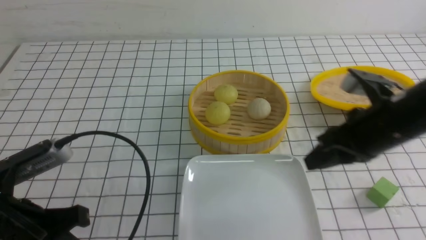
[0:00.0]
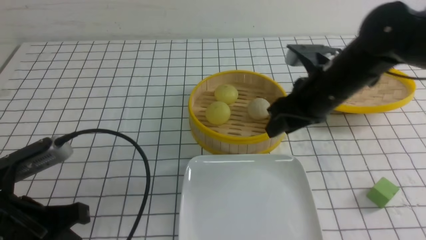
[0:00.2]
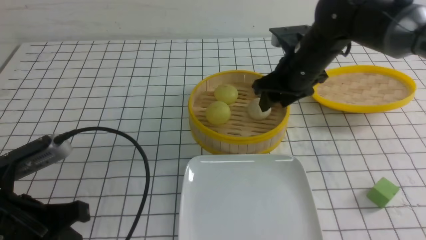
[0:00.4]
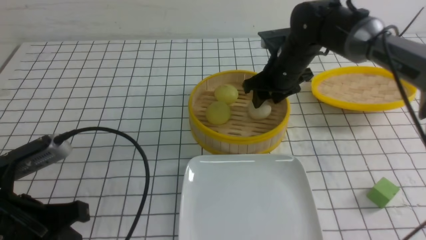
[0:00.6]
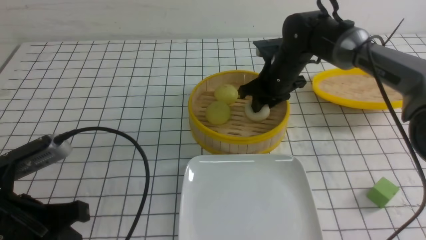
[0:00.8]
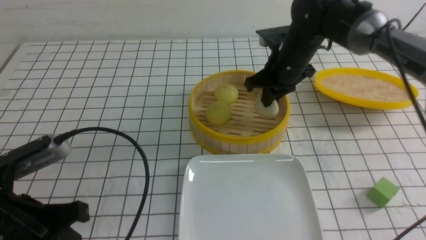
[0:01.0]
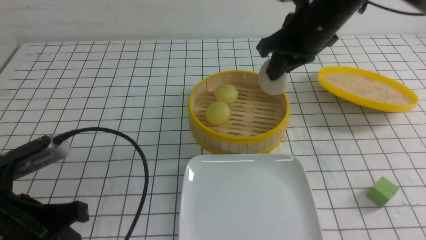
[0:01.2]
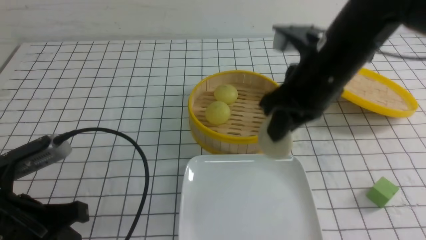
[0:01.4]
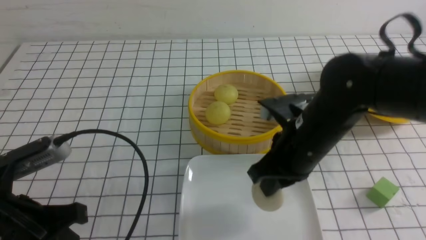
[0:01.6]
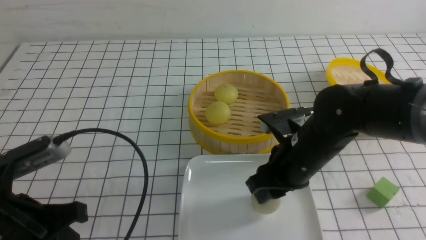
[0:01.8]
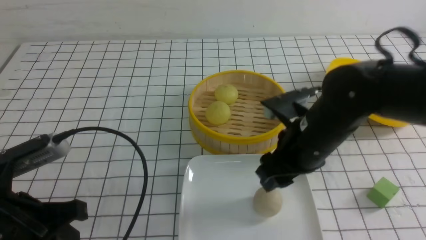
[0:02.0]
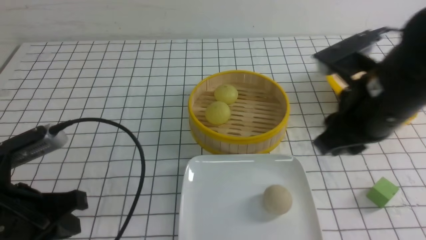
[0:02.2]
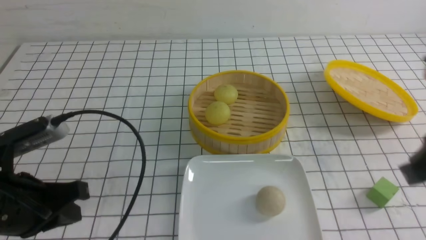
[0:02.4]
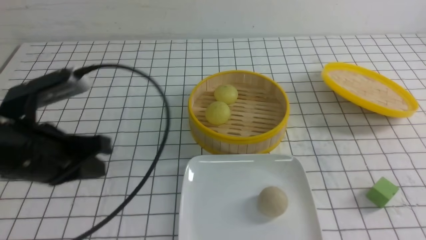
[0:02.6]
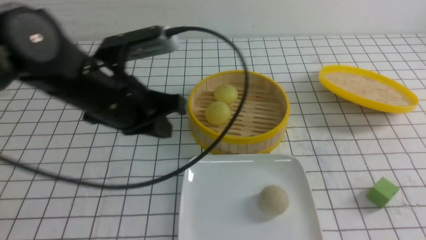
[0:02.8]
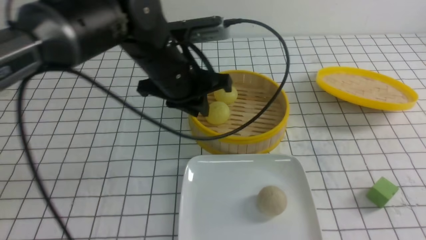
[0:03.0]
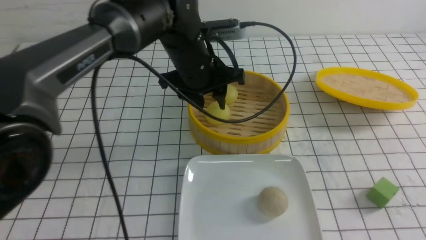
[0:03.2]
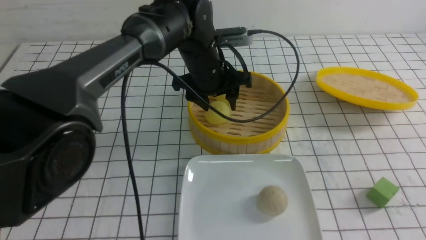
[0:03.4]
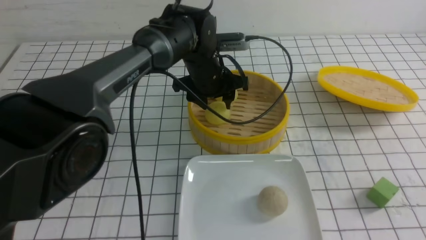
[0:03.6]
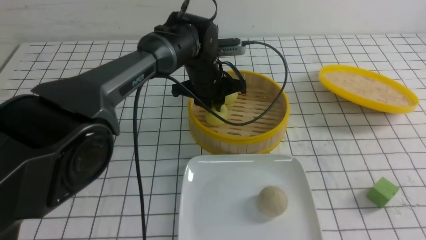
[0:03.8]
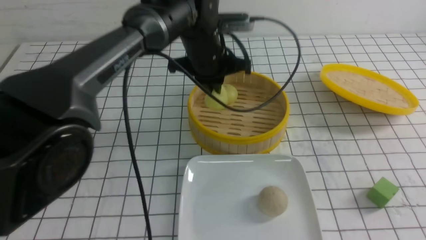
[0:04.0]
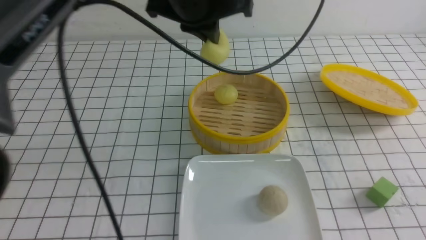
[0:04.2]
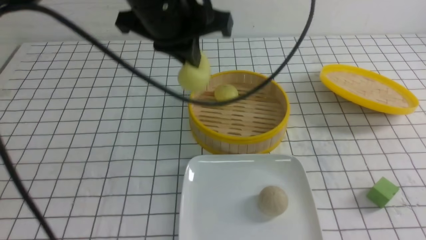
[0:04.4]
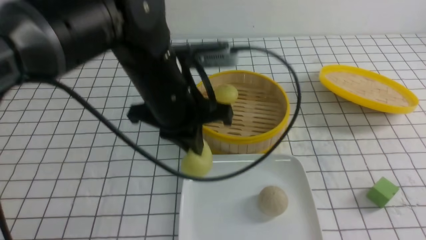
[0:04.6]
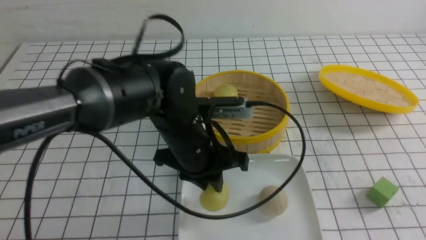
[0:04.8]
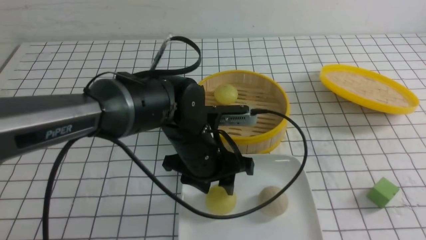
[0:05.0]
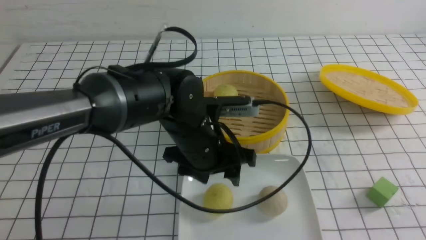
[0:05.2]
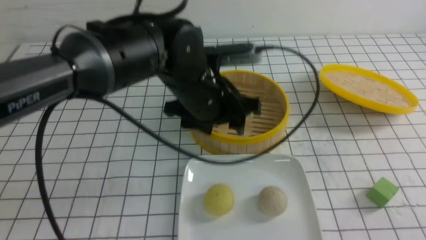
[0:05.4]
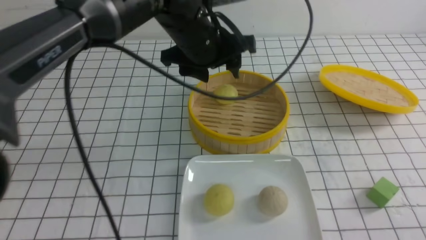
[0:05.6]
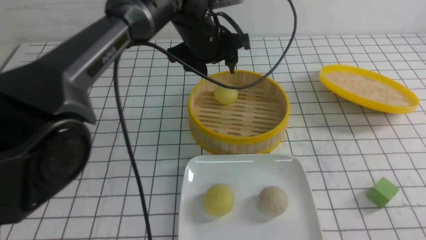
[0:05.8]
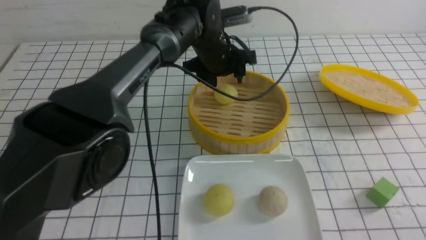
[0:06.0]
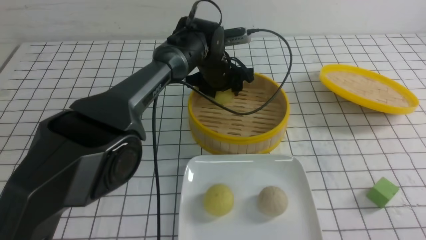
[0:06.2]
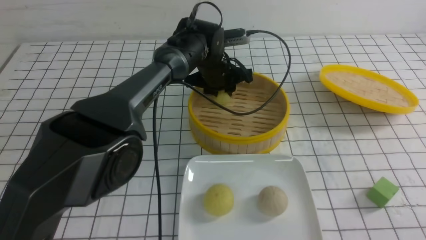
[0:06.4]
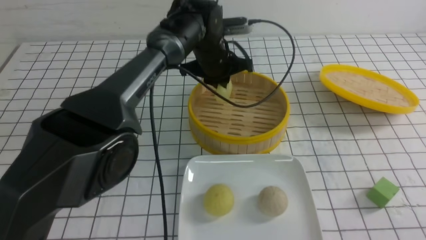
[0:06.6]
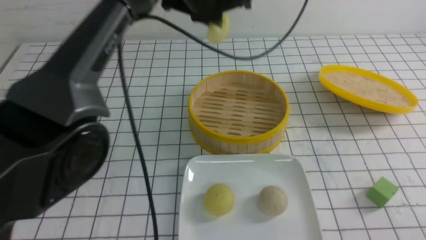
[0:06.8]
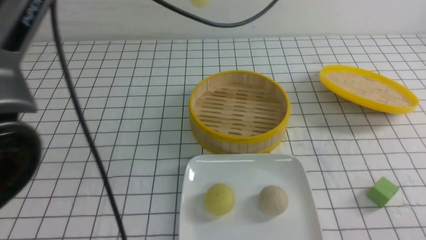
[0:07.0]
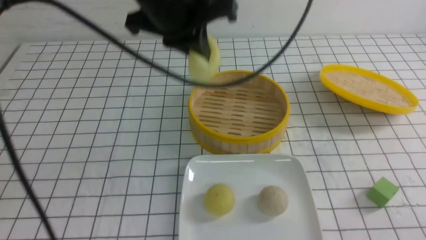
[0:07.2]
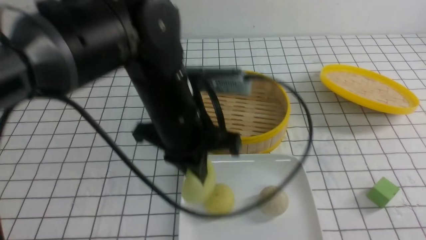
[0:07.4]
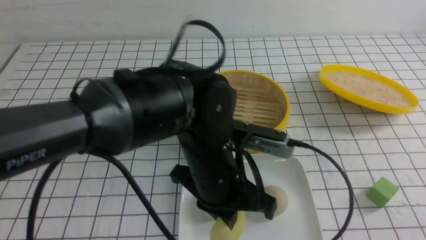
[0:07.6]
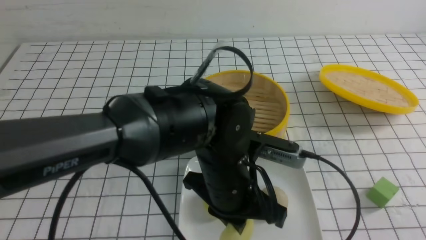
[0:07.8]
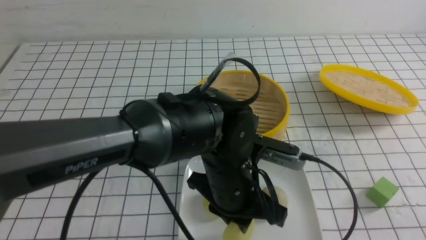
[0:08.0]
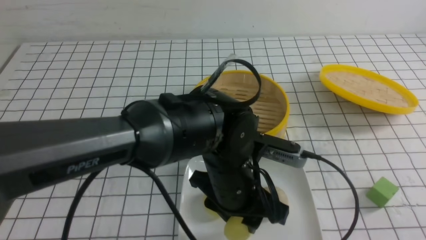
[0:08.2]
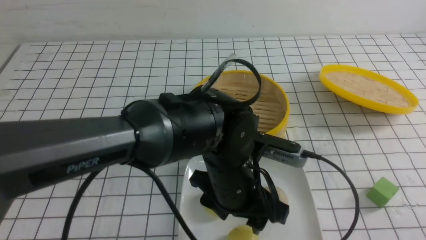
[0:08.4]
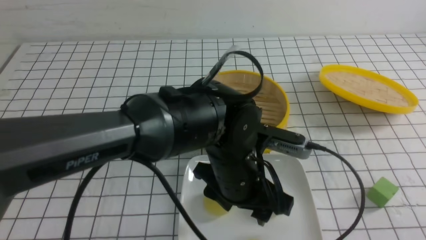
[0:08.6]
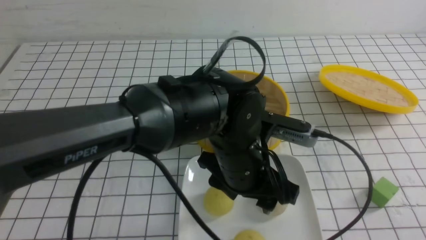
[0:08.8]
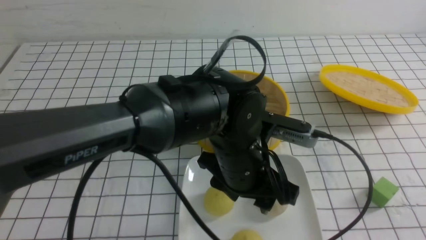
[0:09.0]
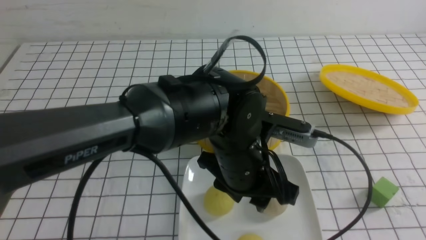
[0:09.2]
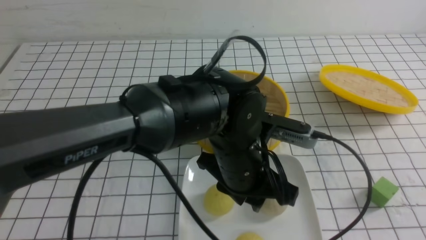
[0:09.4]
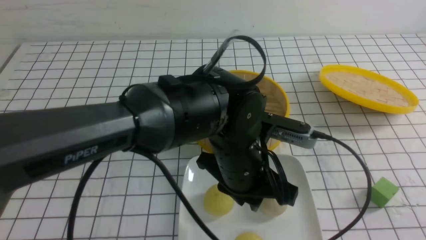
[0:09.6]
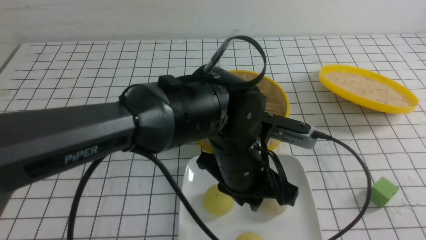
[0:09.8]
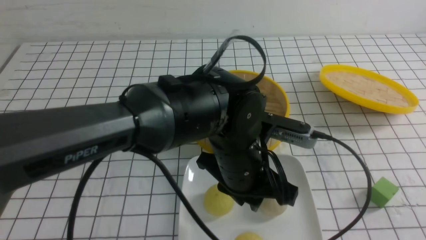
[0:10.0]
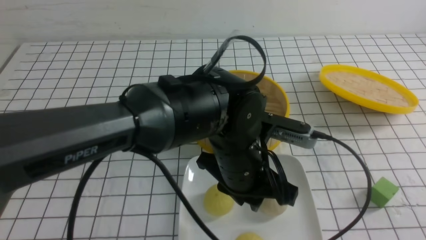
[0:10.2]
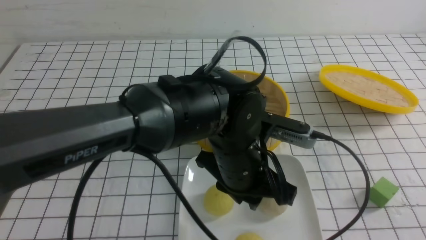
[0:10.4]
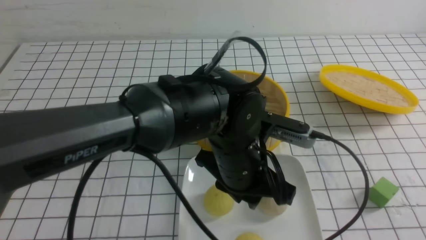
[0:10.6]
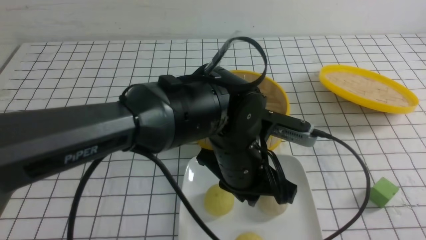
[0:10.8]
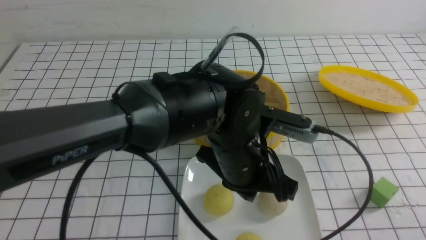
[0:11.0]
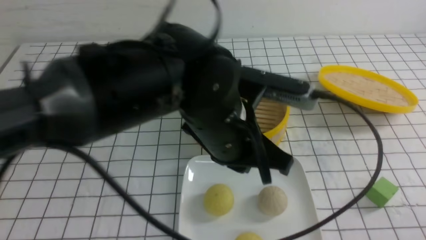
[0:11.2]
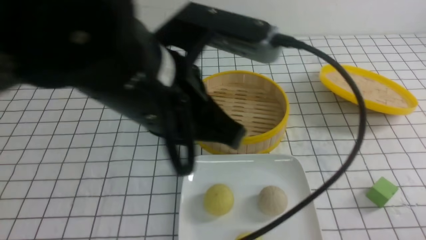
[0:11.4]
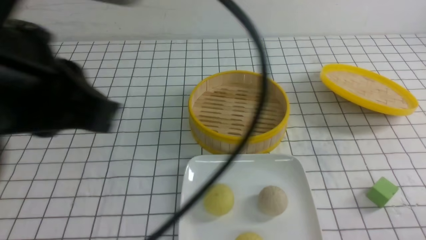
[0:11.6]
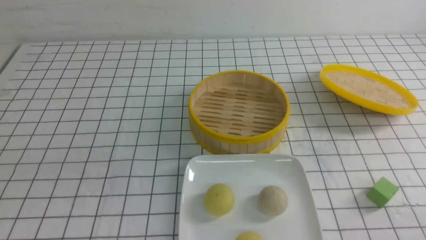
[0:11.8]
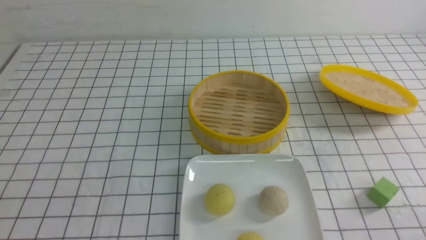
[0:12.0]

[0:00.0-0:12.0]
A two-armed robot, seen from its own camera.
Step, 0:01.2 to 0:02.0: use the right arm to put the steamed stuffed bun into the plate.
Step, 0:02.2 to 0:03.8: use the left arm to grab the steamed stuffed bun that is closest to it.
Step, 0:04.0 to 0:05.2: use the left arm to put the steamed stuffed bun into the plate.
Step, 0:05.4 to 0:06.4: use the left arm to grab the steamed stuffed bun that is closest to it.
Step, 0:06.8 to 0:08.4: use the left arm to put the steamed stuffed bun into the plate.
0:00.0 to 0:01.6: The right gripper shifts some 10 cm to the left, and goes forward and returns, some 20 cm each way.
0:01.6 to 0:03.0: The right gripper goes about 25 cm backward and to the right, and closes its fingers; the left gripper is displaced forward and to the right by about 25 cm.
0:03.0 to 0:04.4: The left gripper travels upward by roughly 5 cm, and opens, then closes again.
0:04.4 to 0:06.0: The right gripper heads backward, covering roughly 10 cm. The left gripper moves forward and downward, approximately 20 cm, and opens its fingers.
0:06.0 to 0:07.6: The left gripper shifts about 25 cm backward, and closes up.
0:07.6 to 0:09.0: The left gripper opens.
0:09.0 to 0:10.4: The left gripper closes.
0:10.4 to 0:12.0: The right gripper heads downward, covering approximately 10 cm, while the left gripper travels to the left and backward by some 40 cm, and closes up.

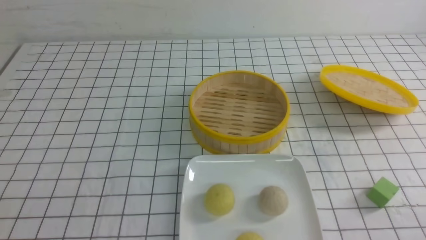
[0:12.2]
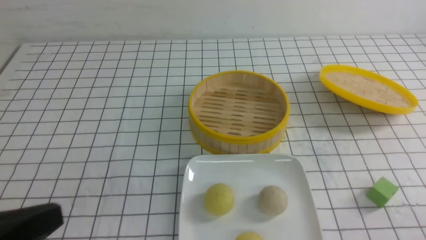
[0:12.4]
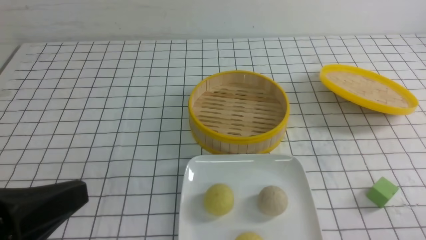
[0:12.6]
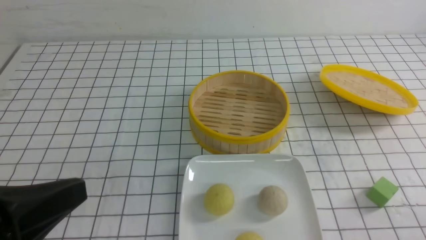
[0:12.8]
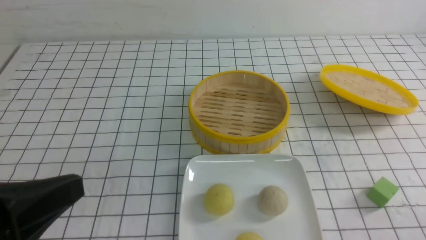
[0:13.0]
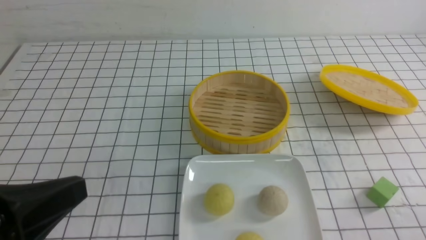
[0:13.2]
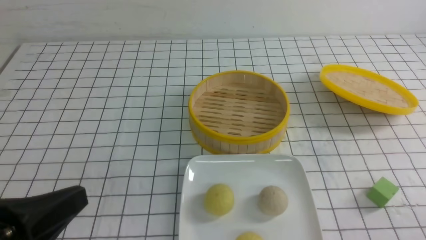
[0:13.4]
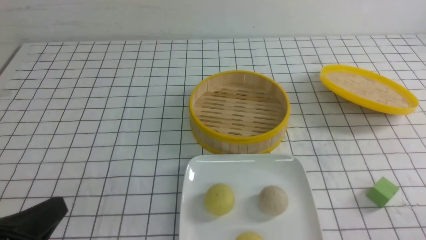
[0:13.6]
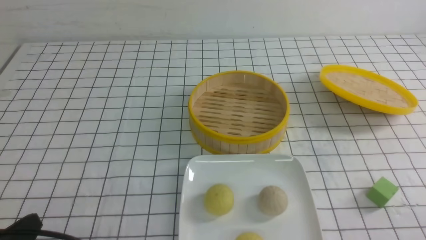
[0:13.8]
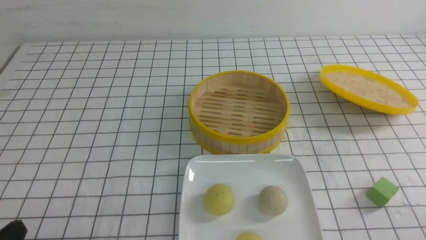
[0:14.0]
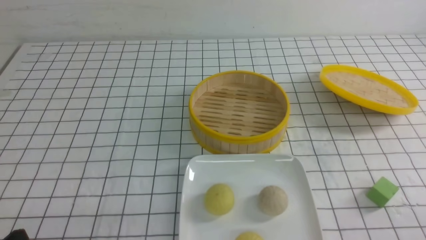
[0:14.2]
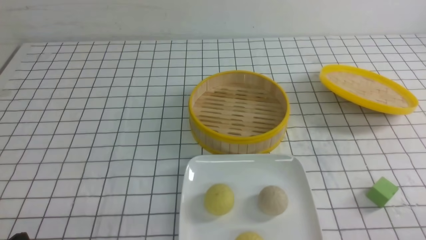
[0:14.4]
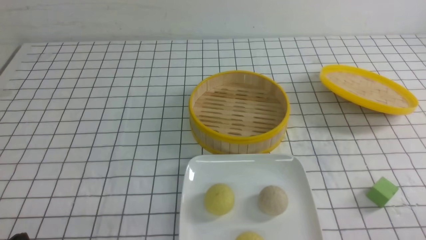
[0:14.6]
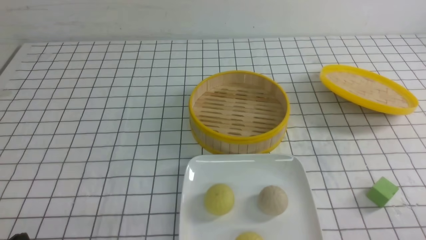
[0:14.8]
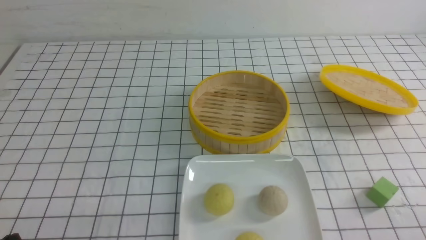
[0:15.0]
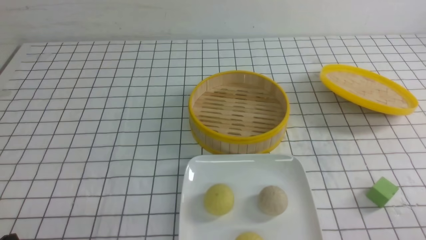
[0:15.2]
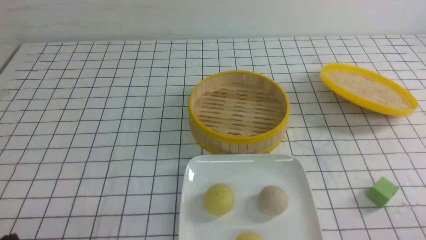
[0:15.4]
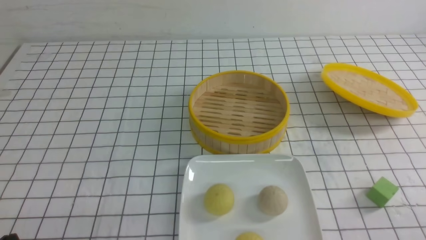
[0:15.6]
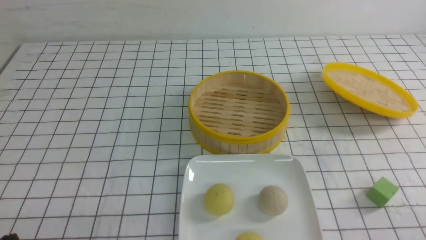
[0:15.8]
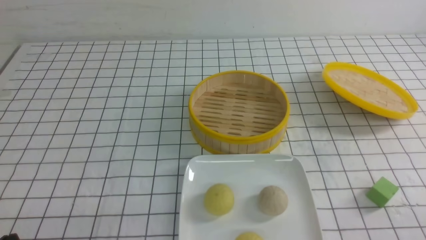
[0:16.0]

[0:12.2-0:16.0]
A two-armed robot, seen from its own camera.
0:12.2 to 0:13.4: The left gripper is displaced to the right by some 5 cm.
0:13.4 to 0:14.8: The left gripper heads downward, covering approximately 10 cm.
0:14.8 to 0:16.0: Both grippers stay about where they are.
